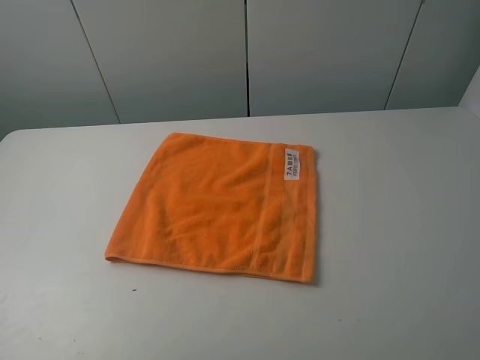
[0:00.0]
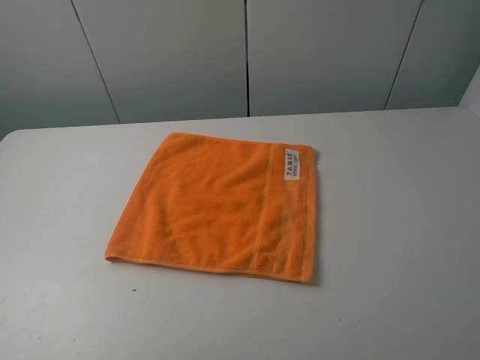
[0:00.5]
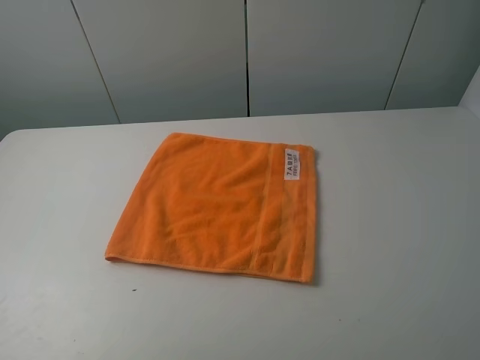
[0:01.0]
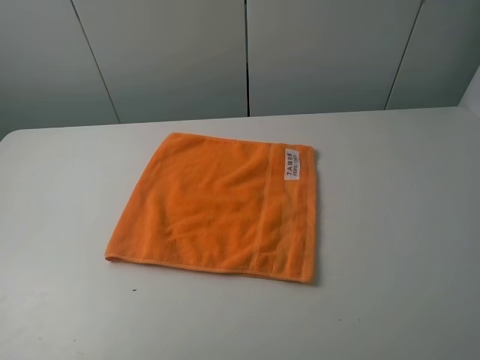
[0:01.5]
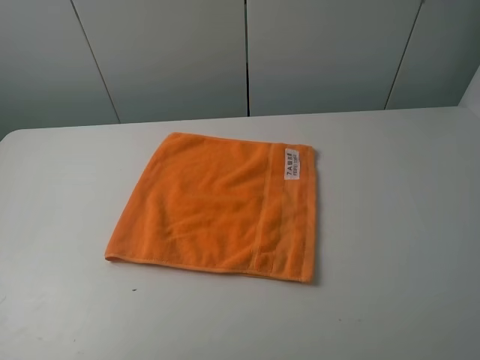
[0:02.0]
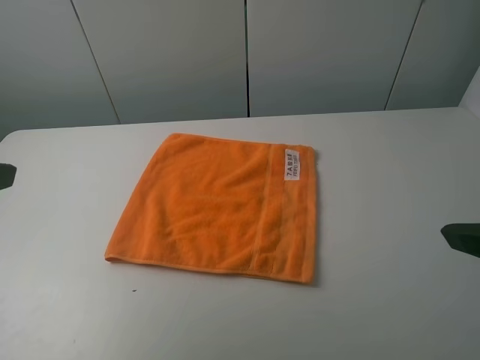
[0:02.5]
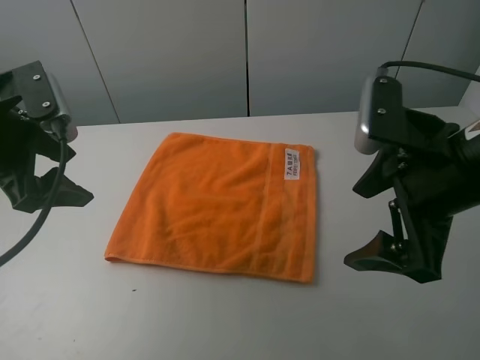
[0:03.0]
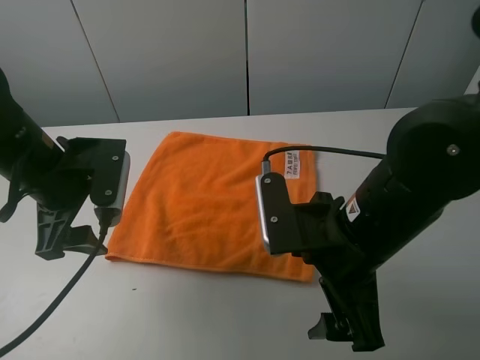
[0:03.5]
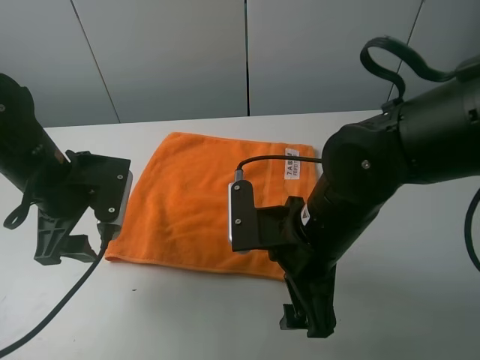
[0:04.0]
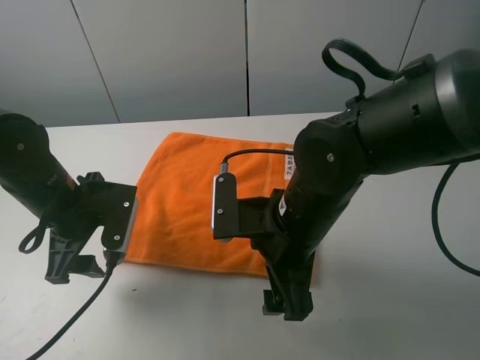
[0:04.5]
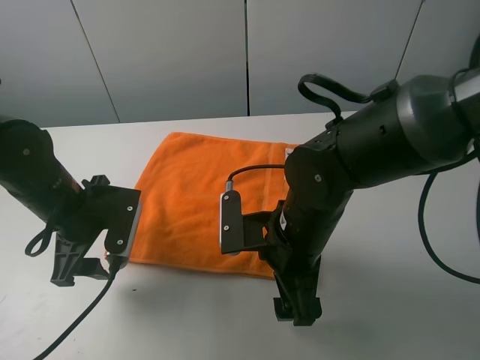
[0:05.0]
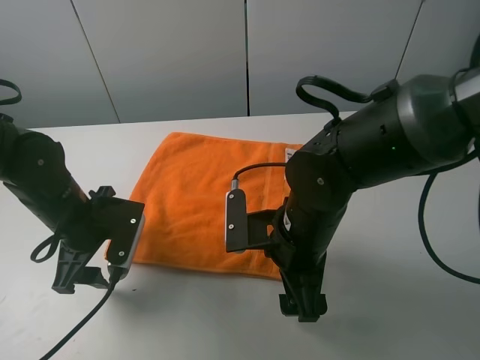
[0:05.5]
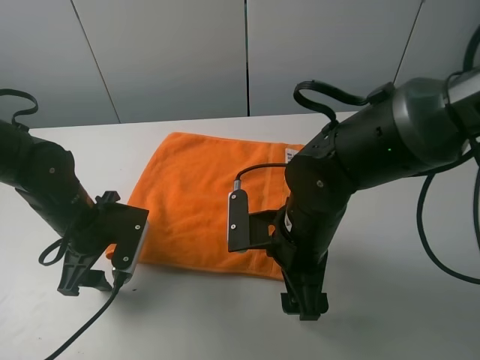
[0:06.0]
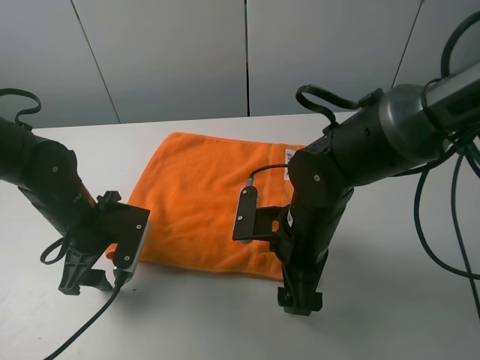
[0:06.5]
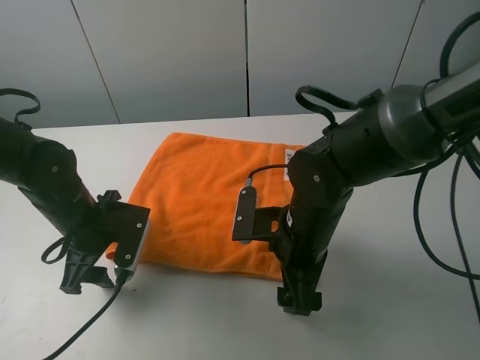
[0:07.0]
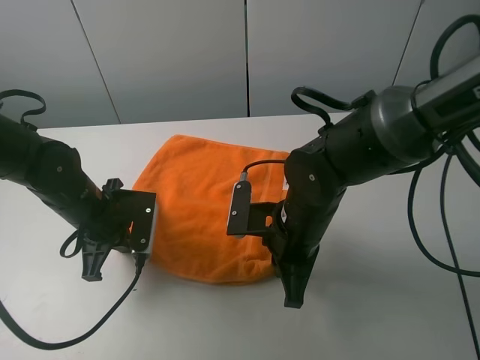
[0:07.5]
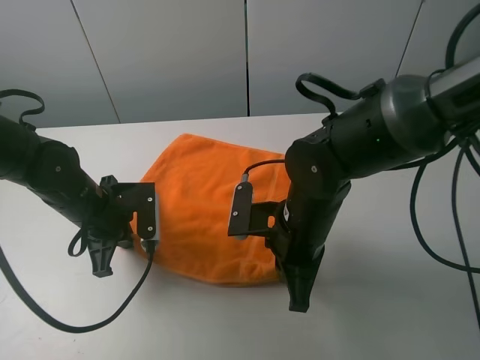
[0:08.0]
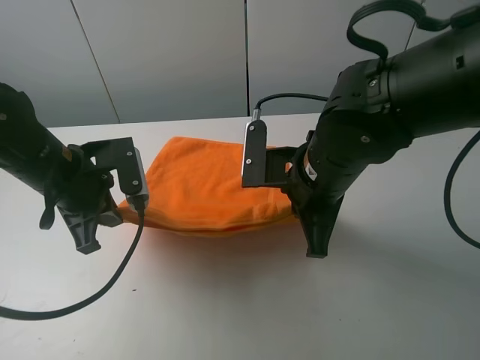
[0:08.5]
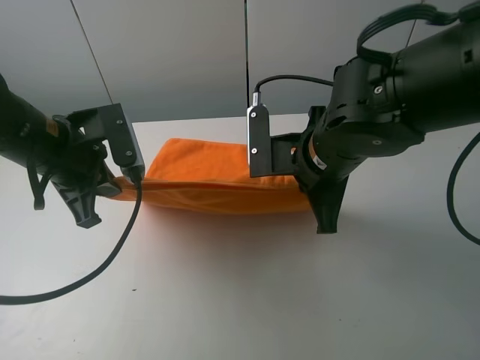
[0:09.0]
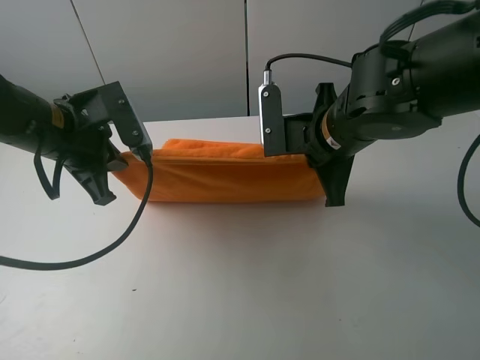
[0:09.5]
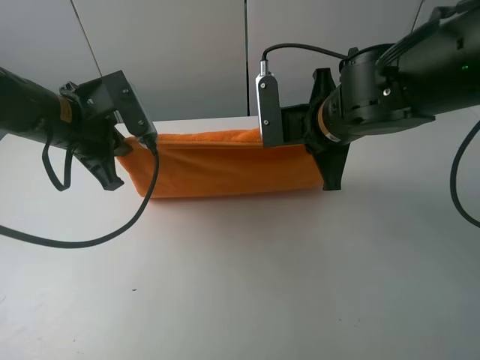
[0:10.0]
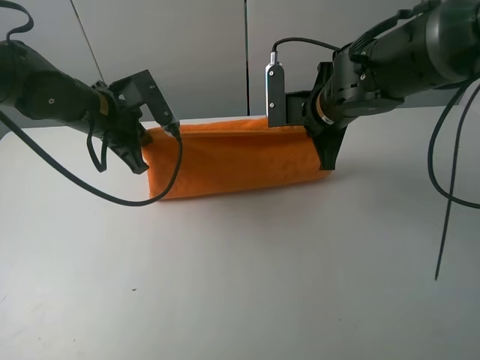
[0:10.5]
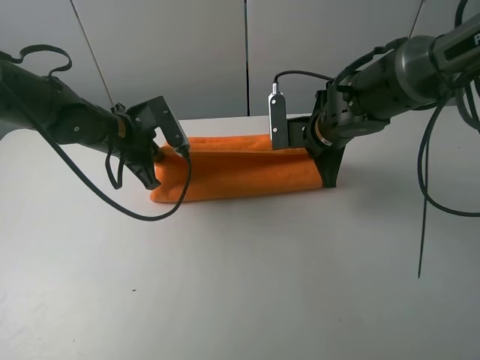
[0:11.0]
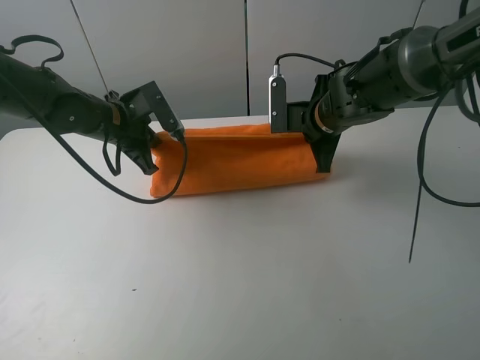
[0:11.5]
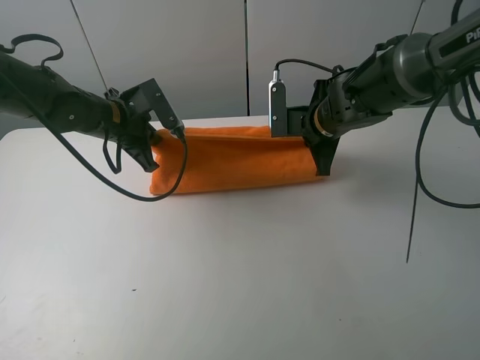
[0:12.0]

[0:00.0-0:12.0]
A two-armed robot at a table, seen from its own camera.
Task of the whole recording: fold the towels on the table.
Step, 0:00.0 to 0:07.0: Grasp the orange towel with the right gripper.
0:02.0 to 0:04.0: The left gripper shifts approximately 25 cm forward and downward. Meanwhile the right gripper travels to the left, forward and downward by roughly 30 cm.
0:04.0 to 0:06.0: The left gripper heads downward, covering about 10 cm.
0:06.0 to 0:08.0: The left gripper closes up; the right gripper closes.
0:08.0 to 0:10.0: The right gripper shifts approximately 10 cm forward and upward, while the left gripper is displaced upward by some 10 cm.
0:10.0 to 0:12.0: The grippers both shift forward and downward by about 10 cm.

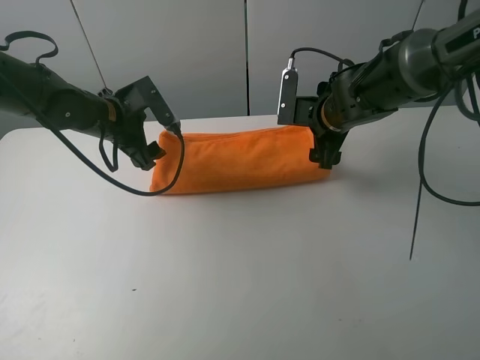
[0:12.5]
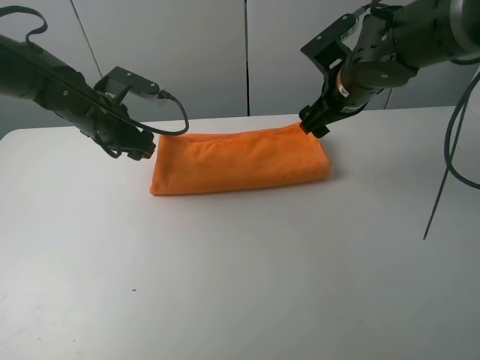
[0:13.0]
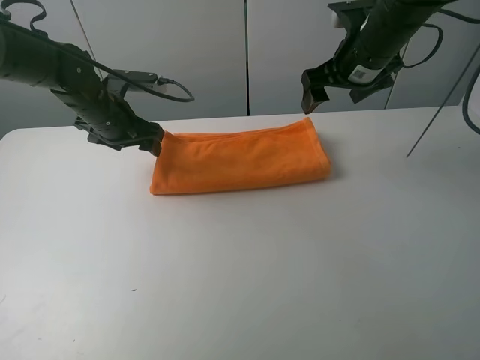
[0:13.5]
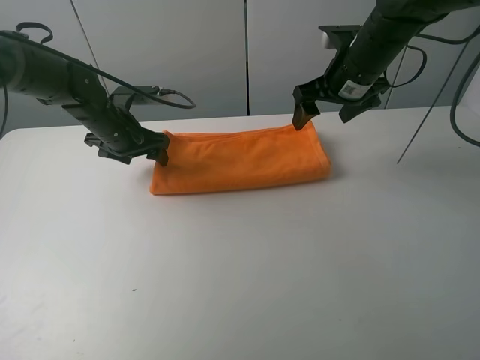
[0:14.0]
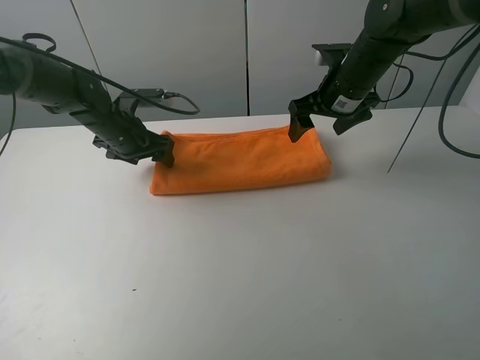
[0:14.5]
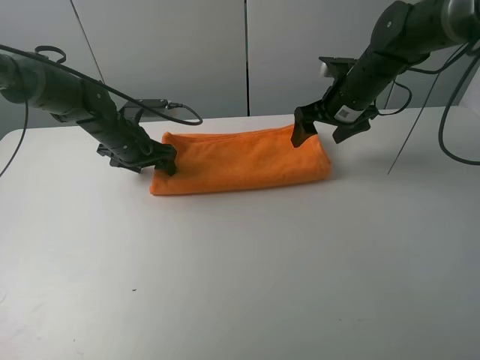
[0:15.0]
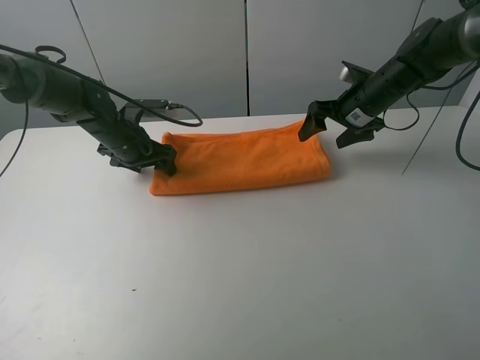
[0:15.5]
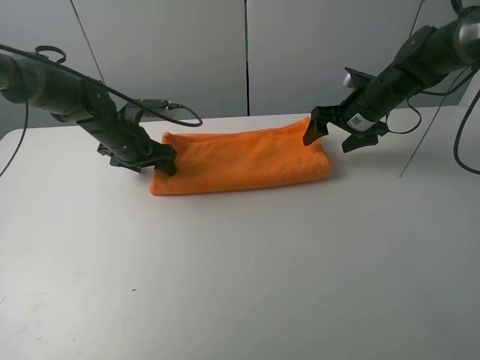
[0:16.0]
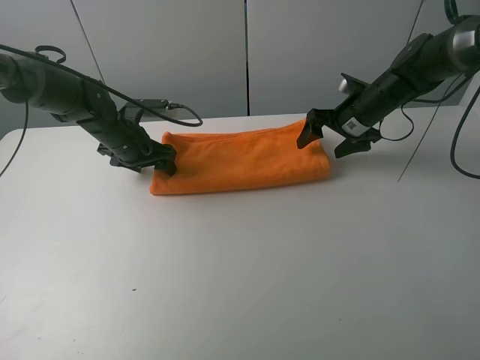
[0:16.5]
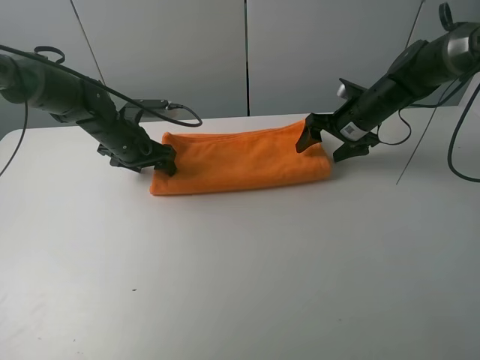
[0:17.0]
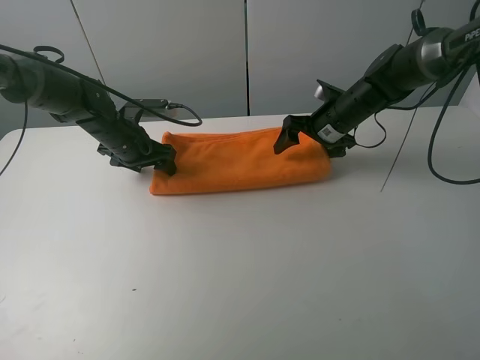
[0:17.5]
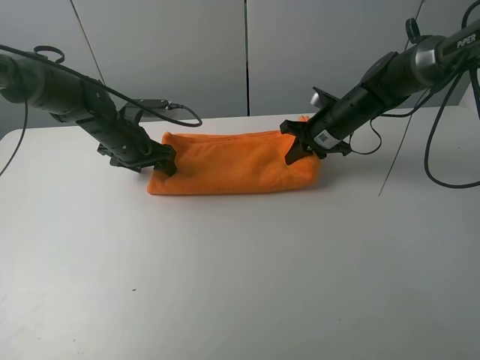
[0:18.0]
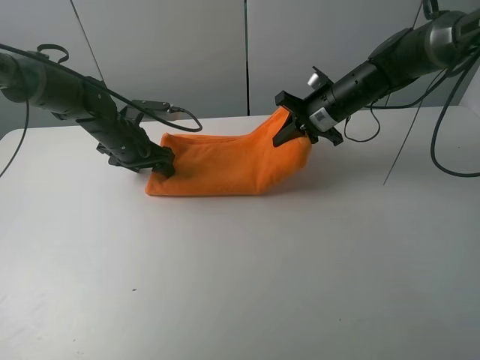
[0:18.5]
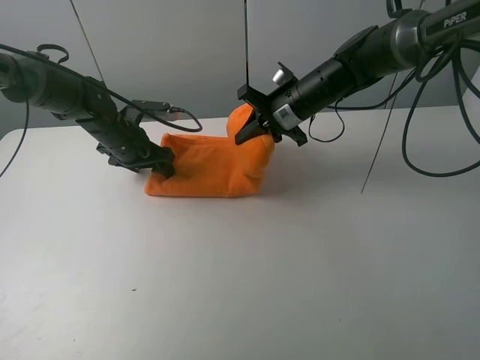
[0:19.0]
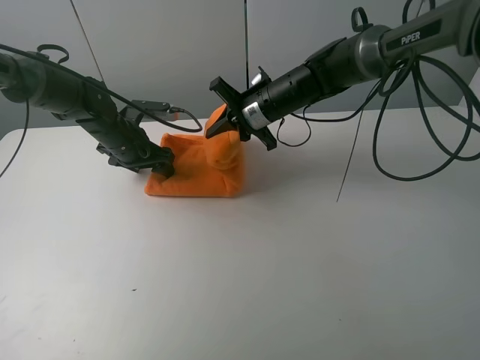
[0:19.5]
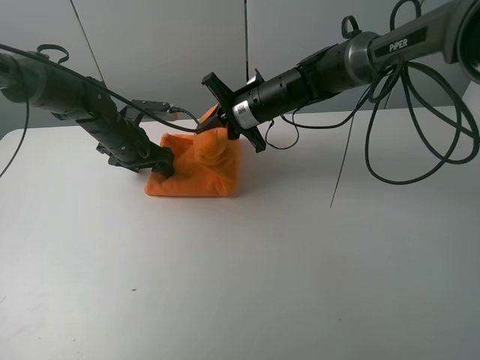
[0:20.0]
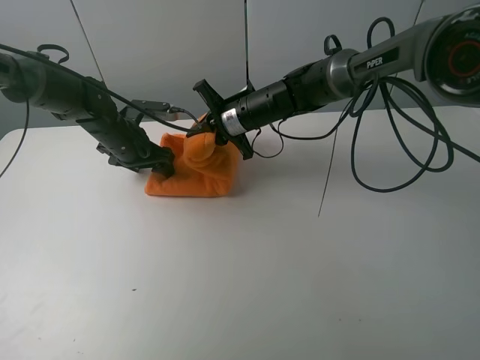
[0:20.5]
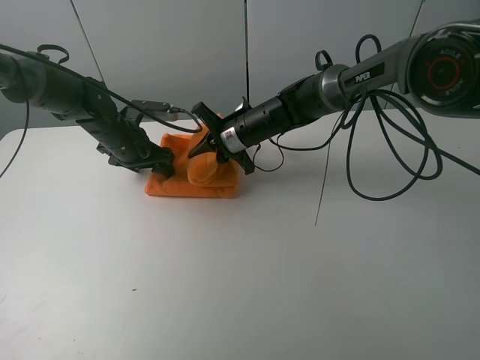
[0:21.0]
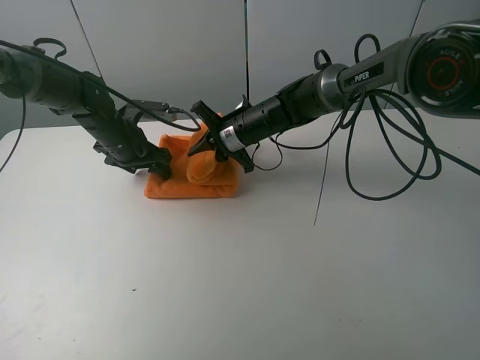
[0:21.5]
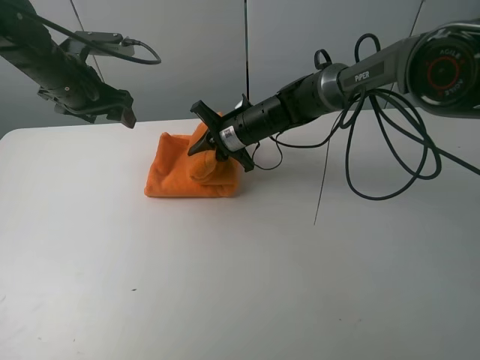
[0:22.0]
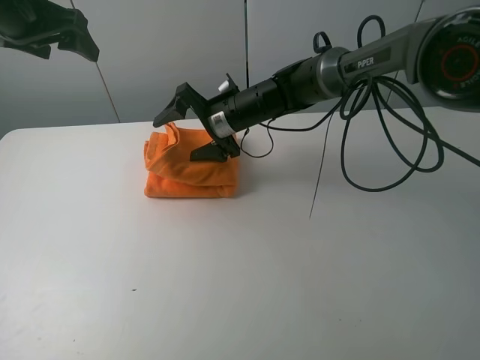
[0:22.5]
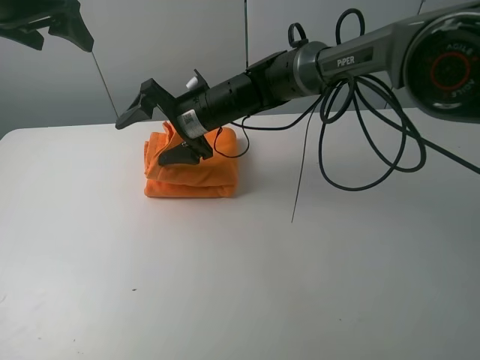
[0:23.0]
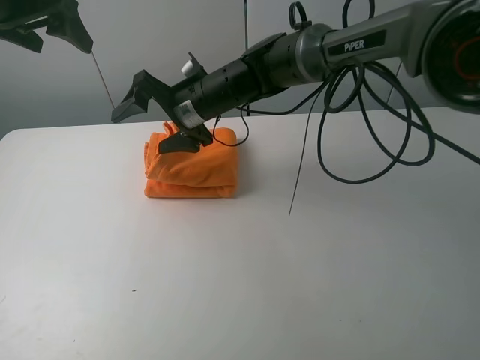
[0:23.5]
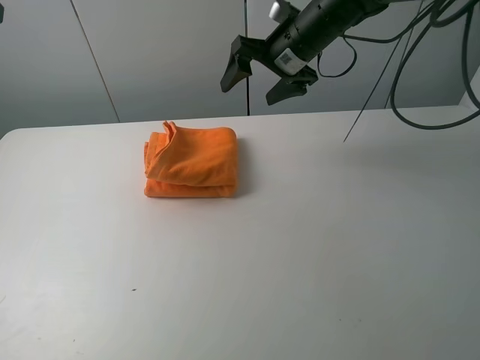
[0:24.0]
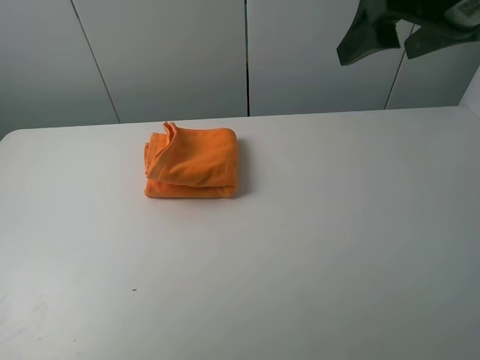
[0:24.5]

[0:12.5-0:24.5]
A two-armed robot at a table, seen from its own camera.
Task of the whole recording: fold the towels on the table.
Step, 0:12.5 to 0:14.5: Press on the orange towel with the left gripper.
Step, 0:15.0 to 0:22.5: Fold the orange towel from right to left with right gripper.
Step, 0:23.0 to 0:23.5: Arrange the orange towel with the right hand.
0:12.5 to 0:14.5: The left gripper ends up about 5 cm from where it was.
0:14.5 to 0:16.5: The right gripper is displaced downward and to the right by about 10 cm.
0:16.5 to 0:18.5: The right gripper travels to the left by roughly 5 cm, and closes.
0:18.5 to 0:20.5: The right gripper shifts roughly 15 cm to the left.
0:20.5 to 0:22.5: The right gripper opens; the left gripper heads upward, covering roughly 25 cm.
0:22.5 to 0:24.5: The left gripper heads backward, covering about 30 cm. The right gripper goes some 35 cm upward, to the right and backward.
